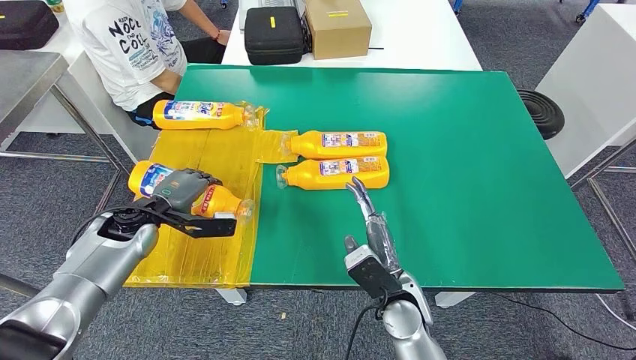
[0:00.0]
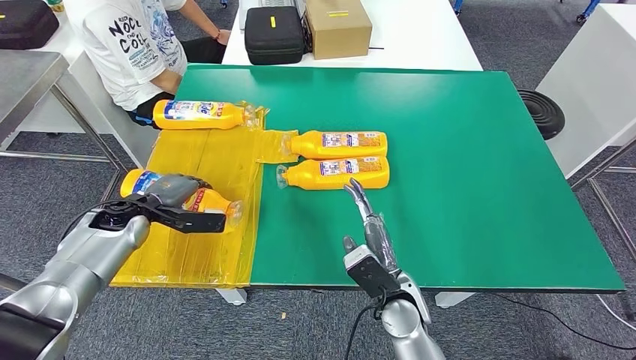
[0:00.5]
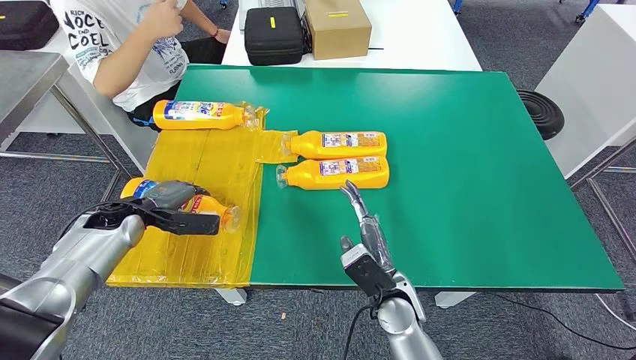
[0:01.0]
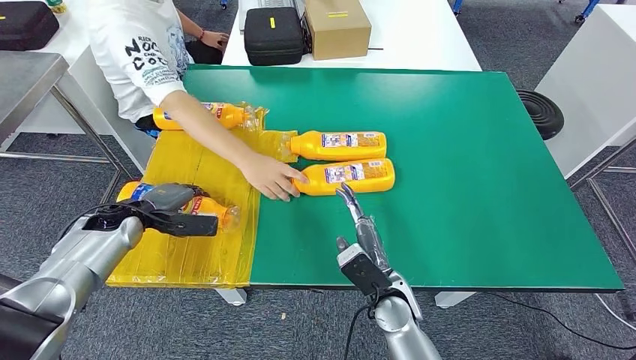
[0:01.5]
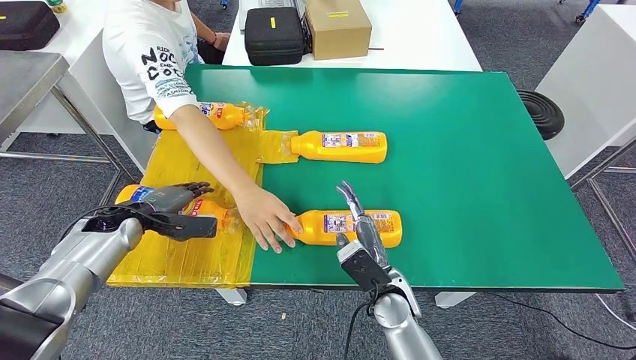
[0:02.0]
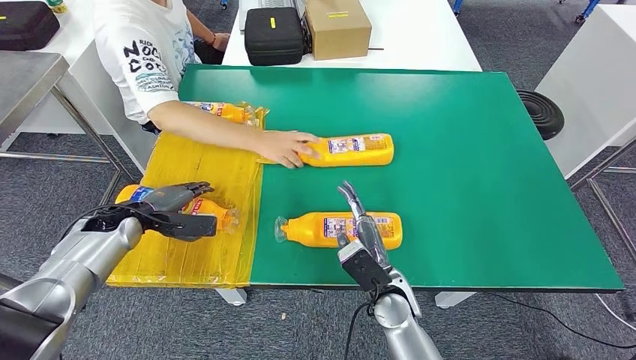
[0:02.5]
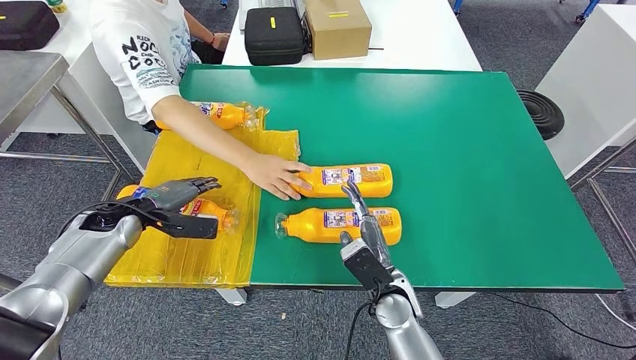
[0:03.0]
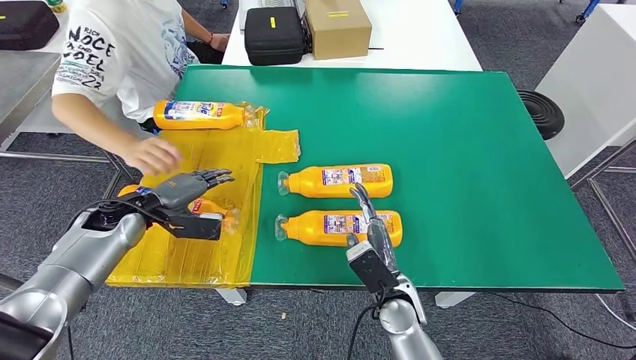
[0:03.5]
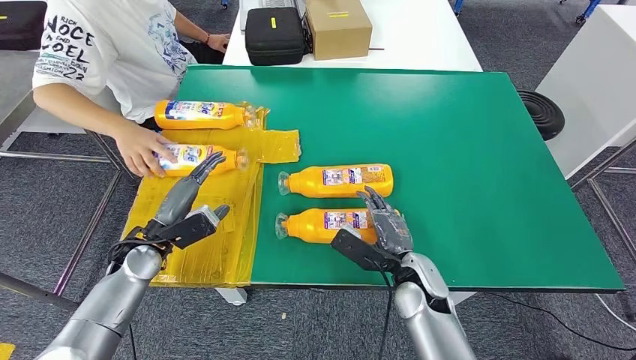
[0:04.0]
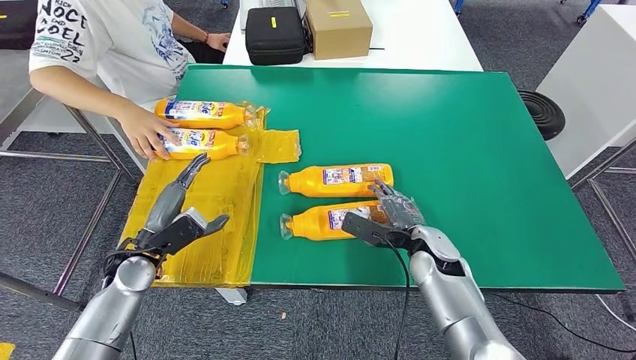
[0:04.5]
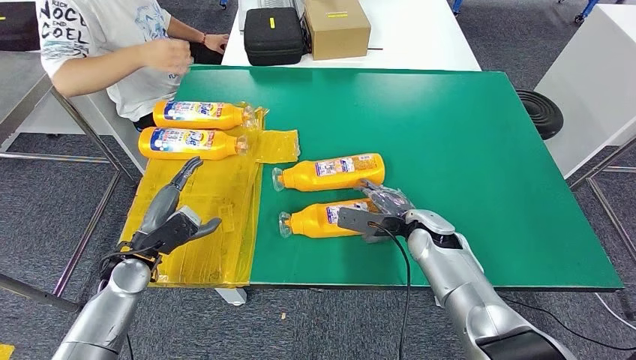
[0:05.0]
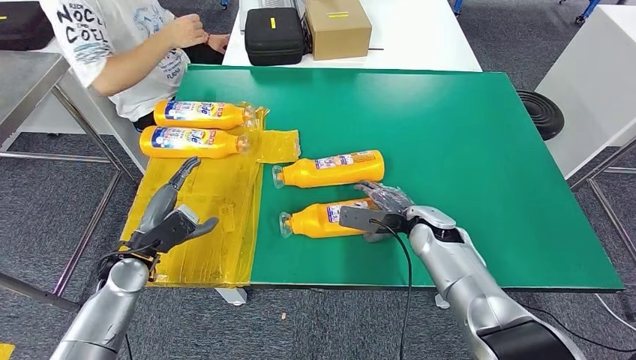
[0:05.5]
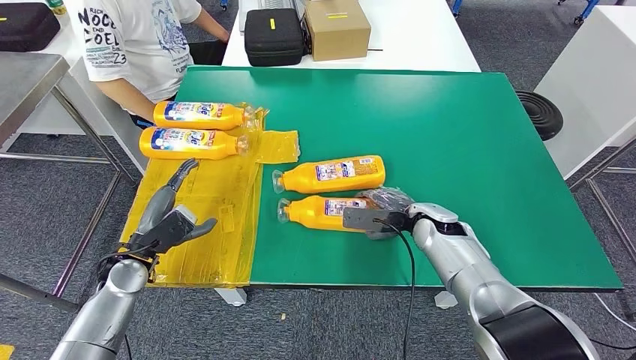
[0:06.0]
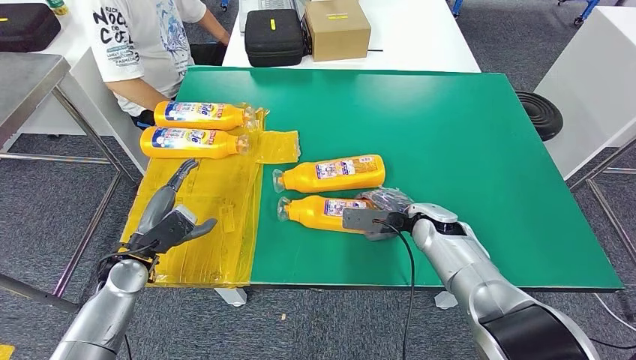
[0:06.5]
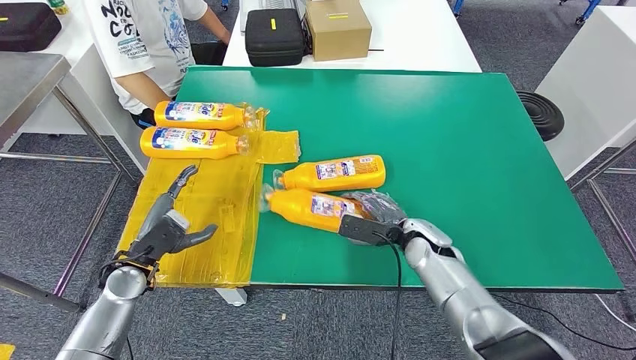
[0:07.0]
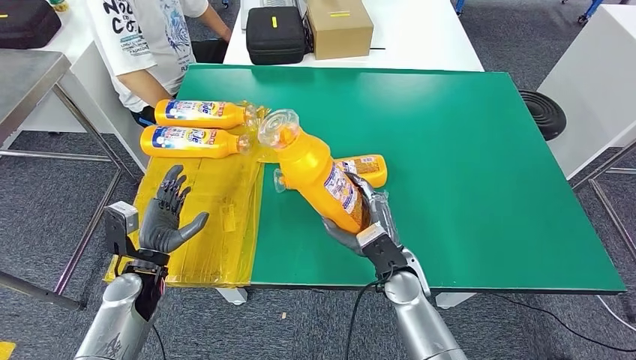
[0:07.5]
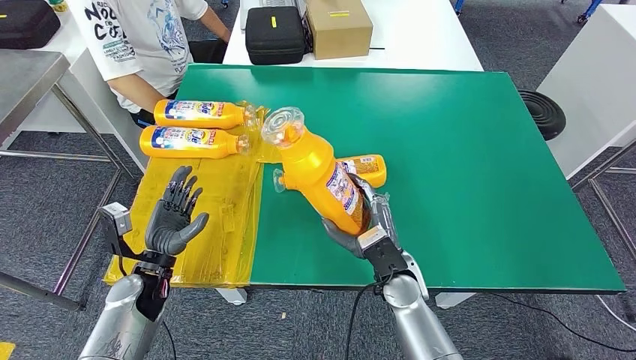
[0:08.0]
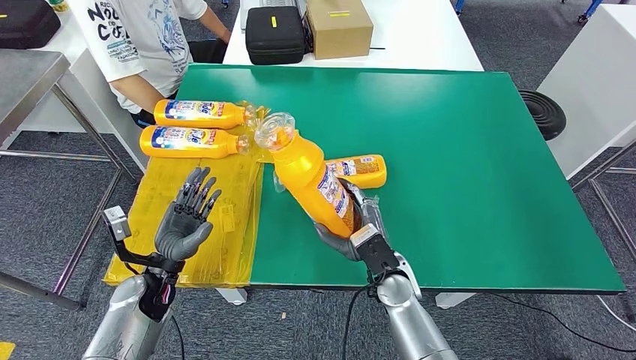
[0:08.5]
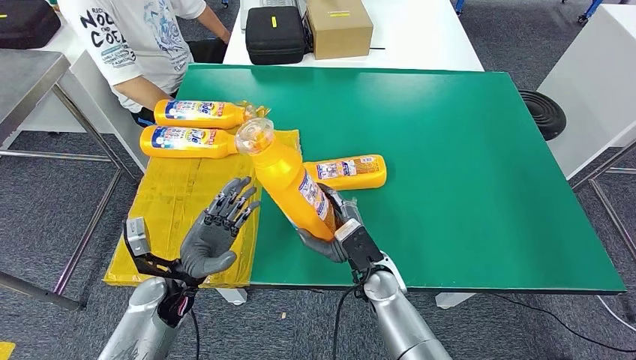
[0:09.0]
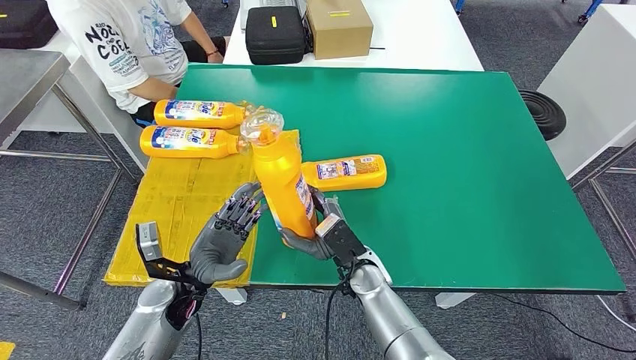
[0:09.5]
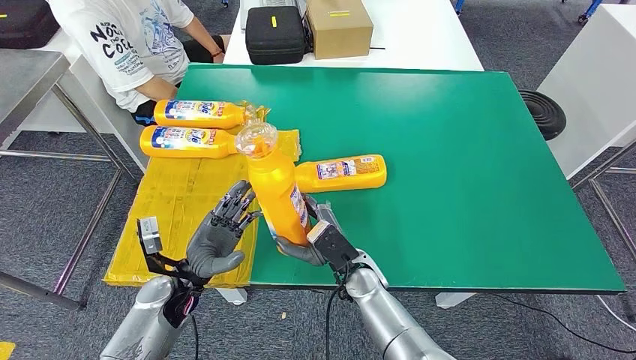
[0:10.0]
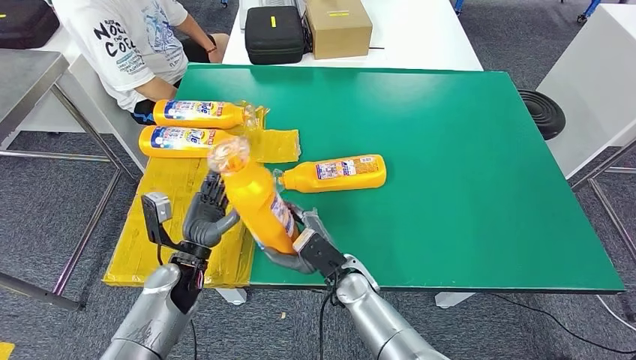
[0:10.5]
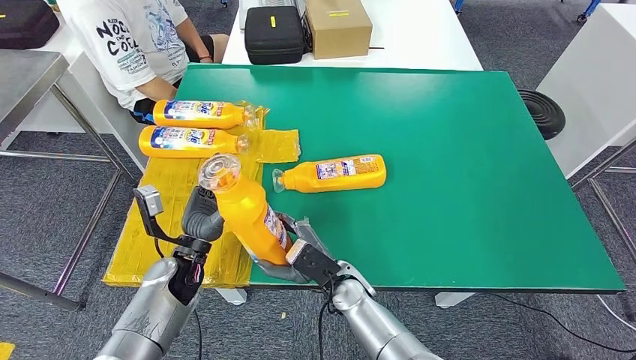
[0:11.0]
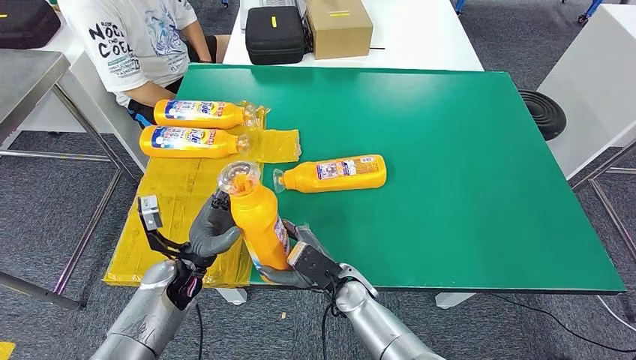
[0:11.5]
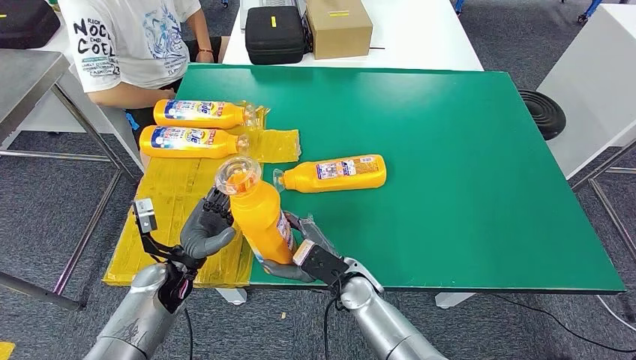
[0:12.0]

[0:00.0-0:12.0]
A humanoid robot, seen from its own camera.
Step, 0:00.0 to 0:03.0: Flip the fast-moving consumer goods bottle to the front side.
Step, 0:05.0 to 0:07.5: Pick up the fast-moving consumer goods bottle from the table.
0:08.0 to 0:10.0: The right hand goes about 5 cm to the left. The left hand shifts approximately 5 cm to the right.

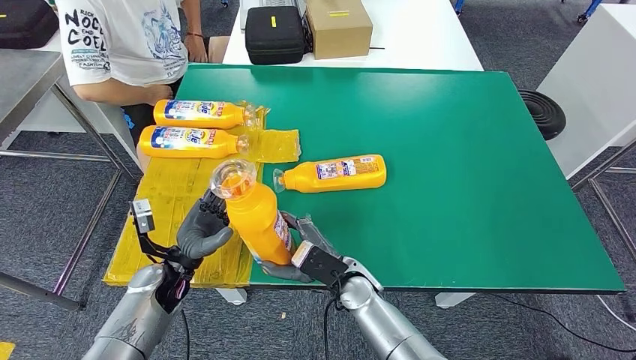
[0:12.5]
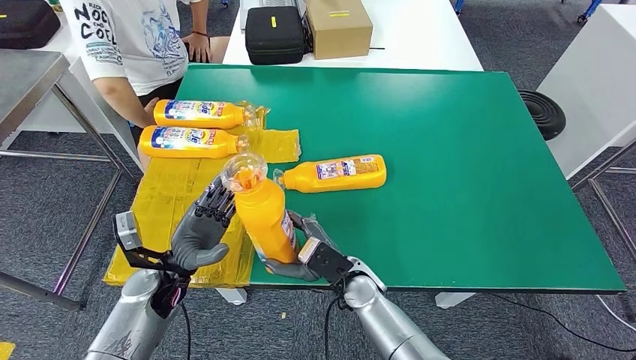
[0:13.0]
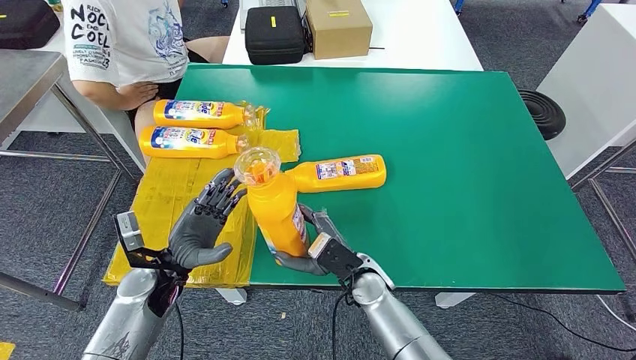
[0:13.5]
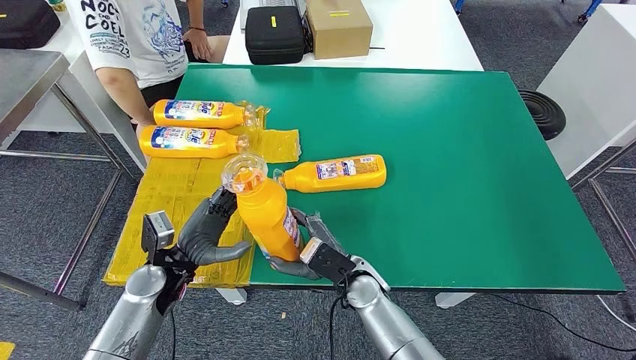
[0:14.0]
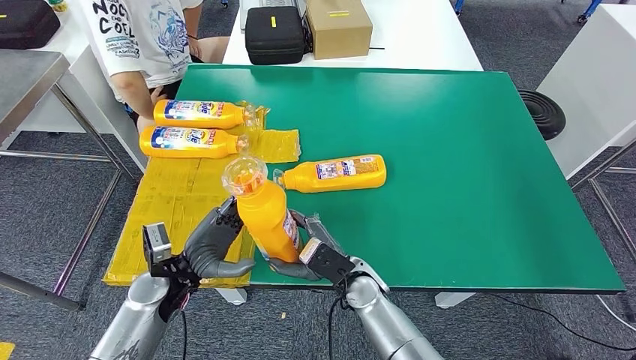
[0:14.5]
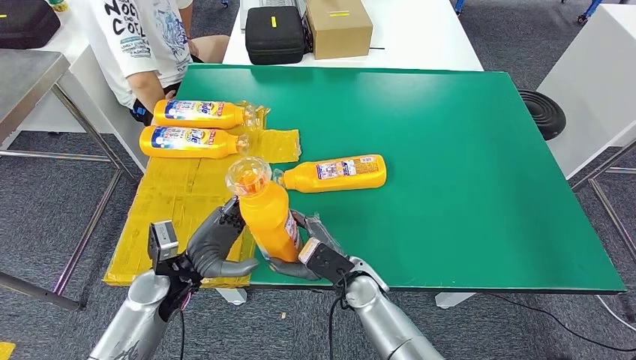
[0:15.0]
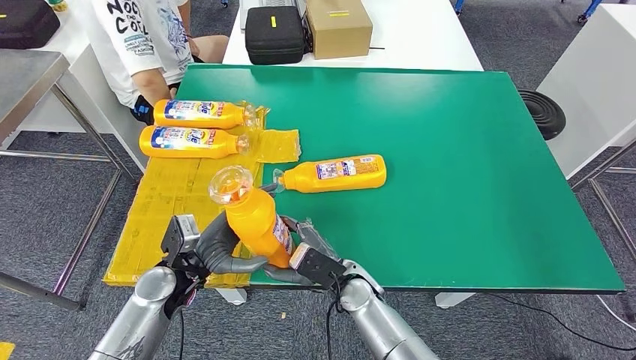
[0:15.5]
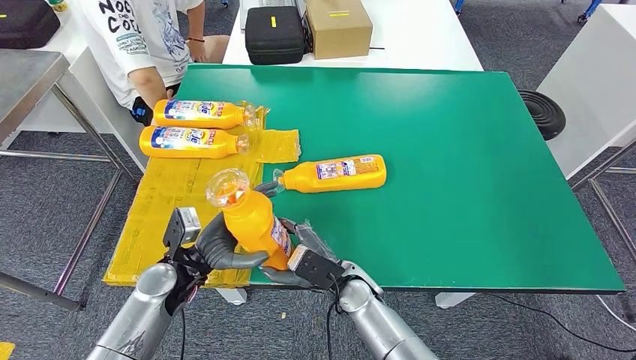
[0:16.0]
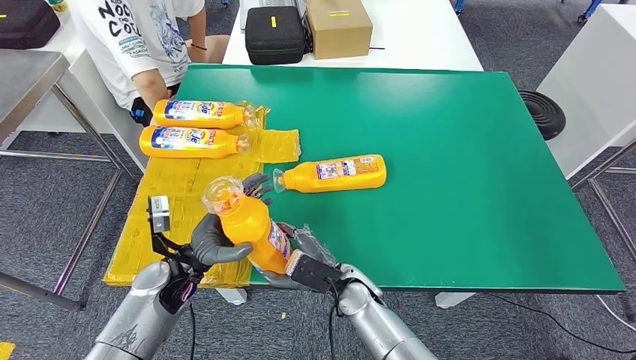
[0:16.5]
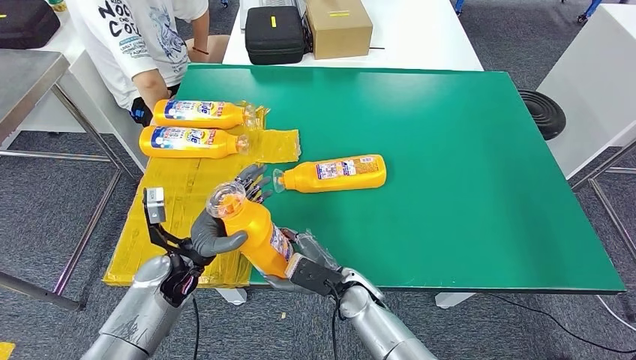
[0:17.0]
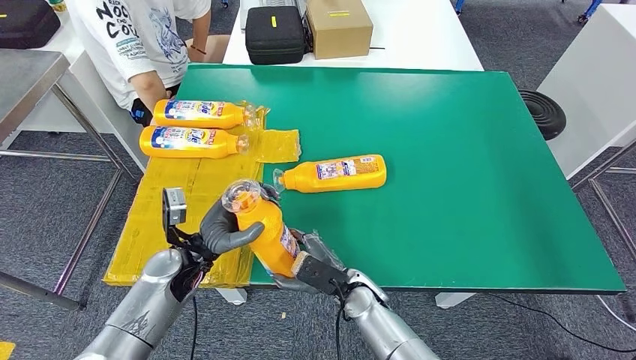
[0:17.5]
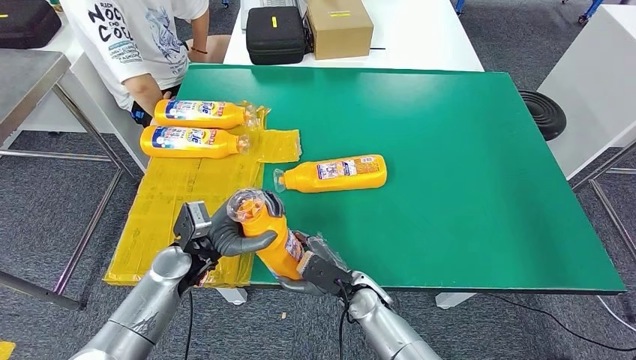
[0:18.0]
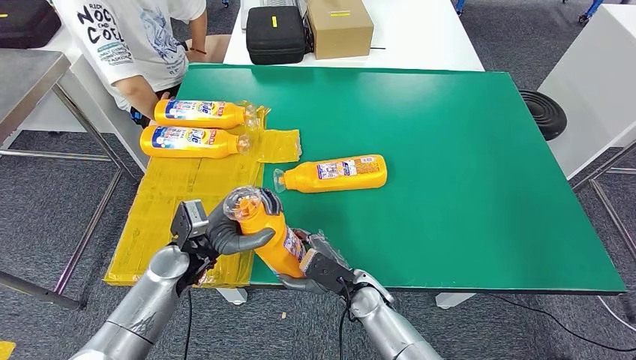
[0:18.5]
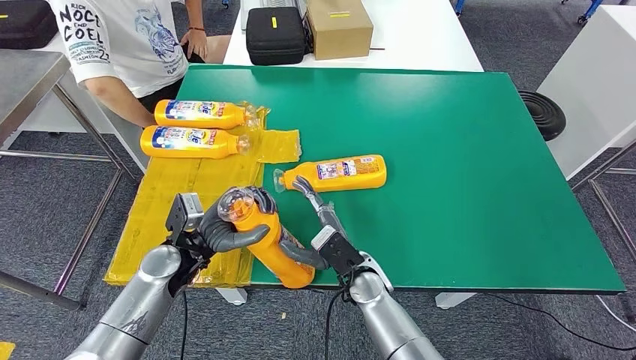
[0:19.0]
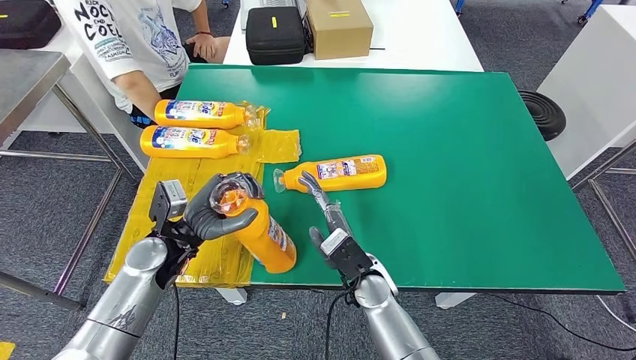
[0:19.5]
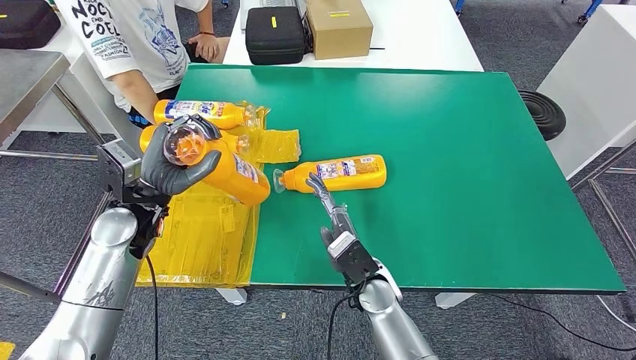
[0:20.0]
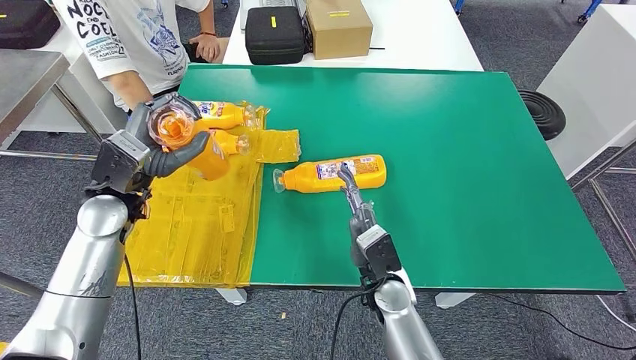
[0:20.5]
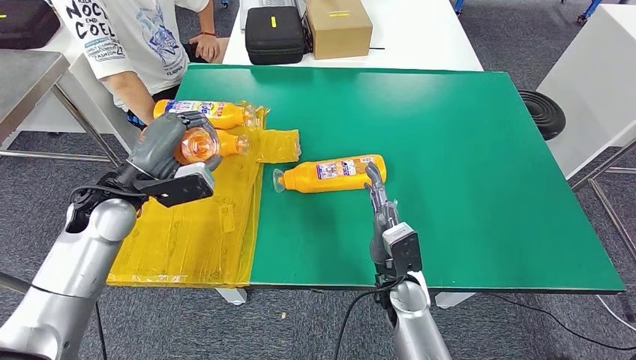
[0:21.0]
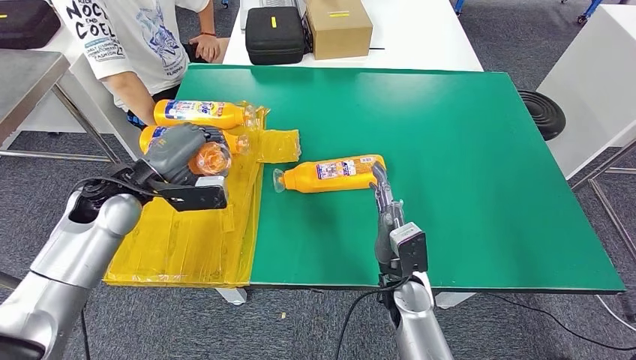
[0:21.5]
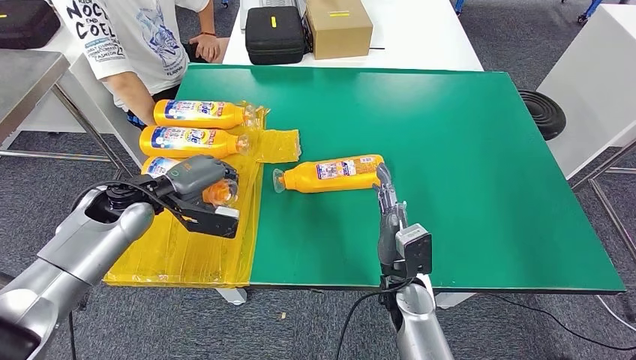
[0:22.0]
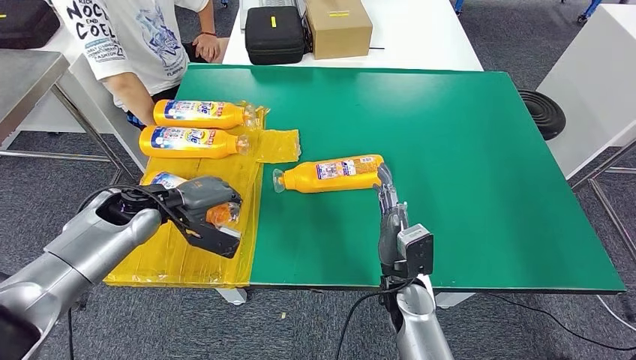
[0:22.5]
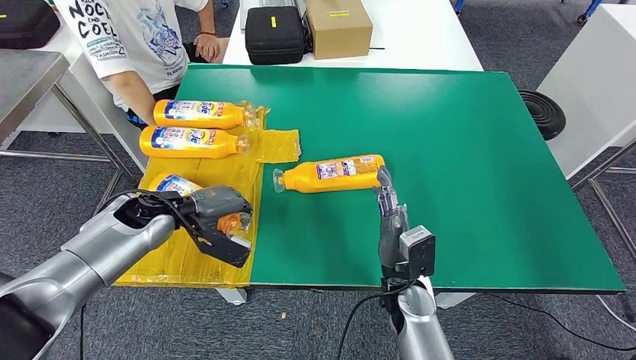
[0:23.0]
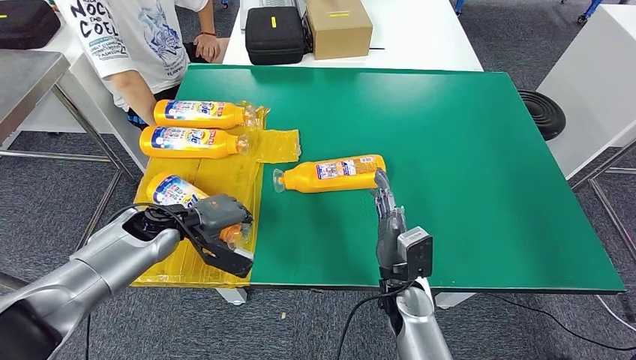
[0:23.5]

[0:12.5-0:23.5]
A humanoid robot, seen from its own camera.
0:14.5 to 0:16.0: The hands move only a little.
0:18.0 to 0:20.0: The right hand shifts approximately 5 cm upward. The left hand moves upward and to the left, approximately 10 cm.
0:20.0 to 0:21.5: The right hand moves to the right, approximately 5 cm.
0:21.5 to 0:23.5: The left hand shifts some 10 cm downward.
